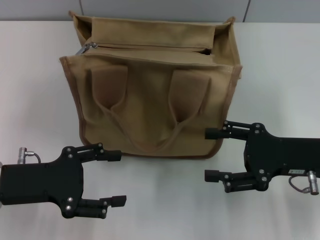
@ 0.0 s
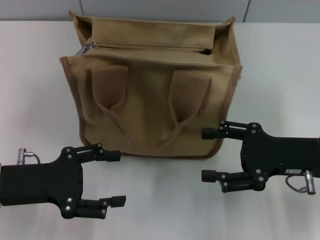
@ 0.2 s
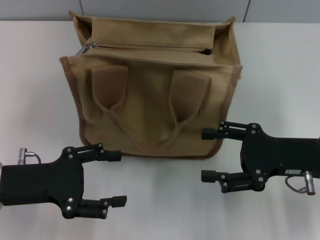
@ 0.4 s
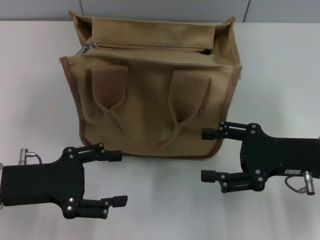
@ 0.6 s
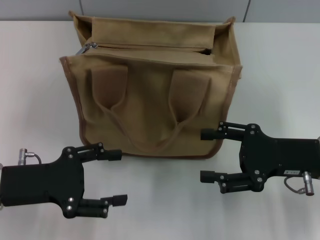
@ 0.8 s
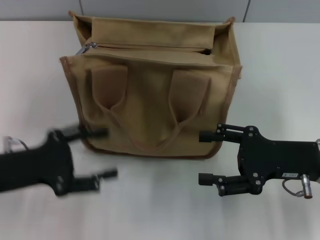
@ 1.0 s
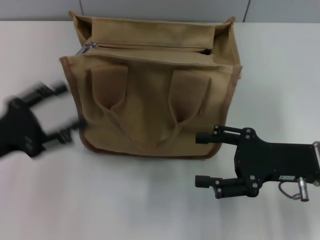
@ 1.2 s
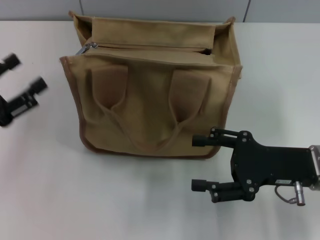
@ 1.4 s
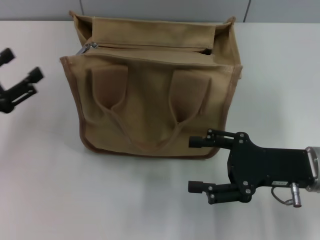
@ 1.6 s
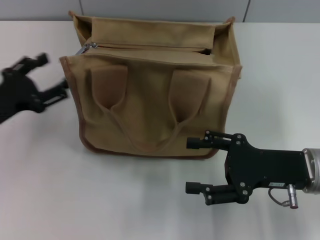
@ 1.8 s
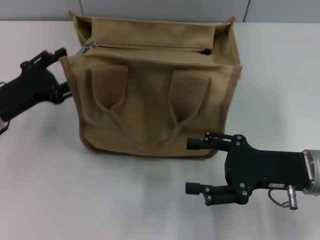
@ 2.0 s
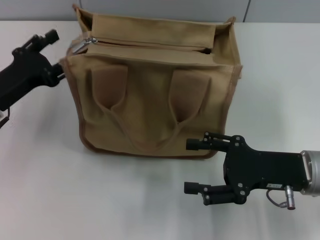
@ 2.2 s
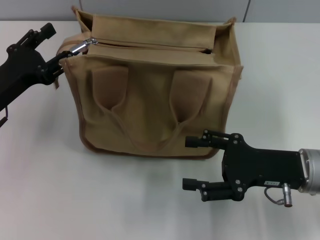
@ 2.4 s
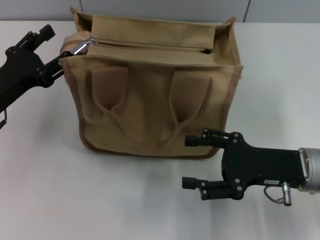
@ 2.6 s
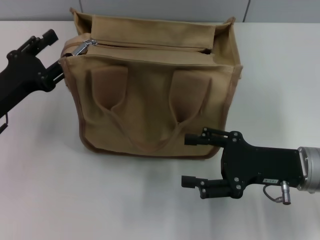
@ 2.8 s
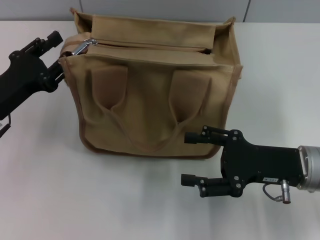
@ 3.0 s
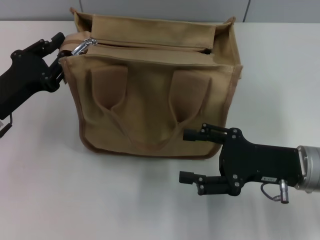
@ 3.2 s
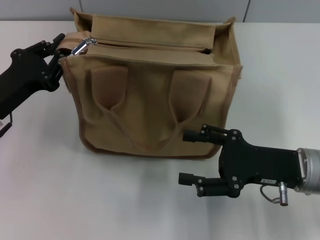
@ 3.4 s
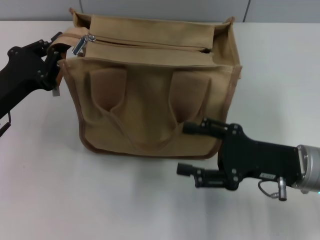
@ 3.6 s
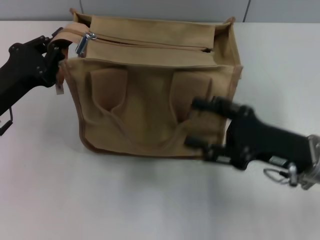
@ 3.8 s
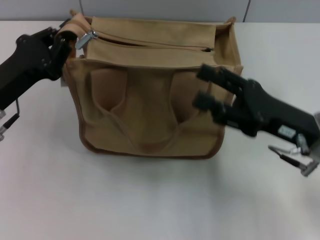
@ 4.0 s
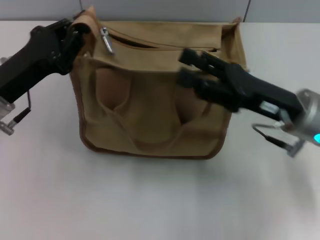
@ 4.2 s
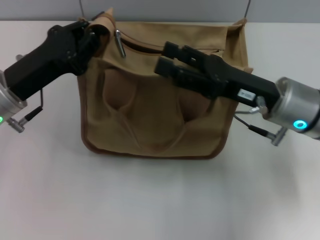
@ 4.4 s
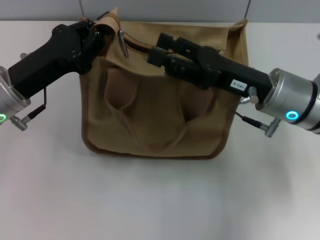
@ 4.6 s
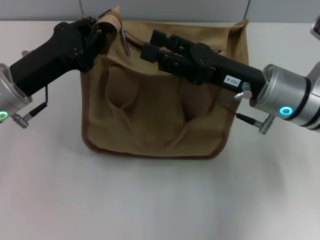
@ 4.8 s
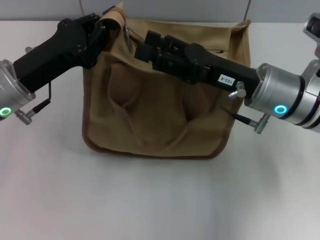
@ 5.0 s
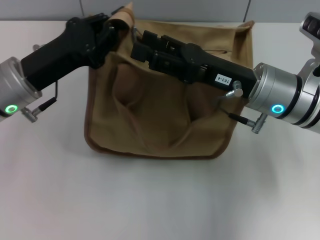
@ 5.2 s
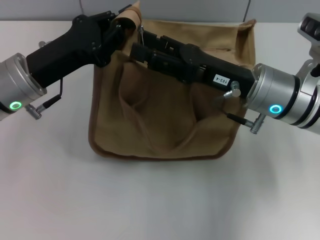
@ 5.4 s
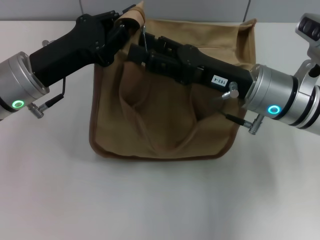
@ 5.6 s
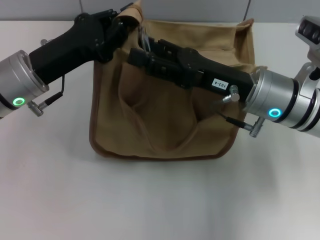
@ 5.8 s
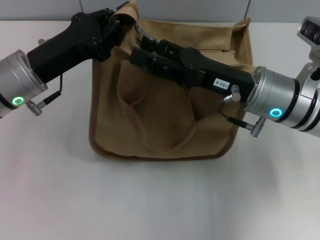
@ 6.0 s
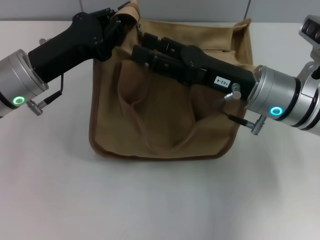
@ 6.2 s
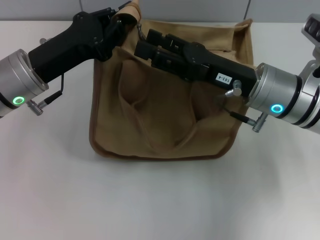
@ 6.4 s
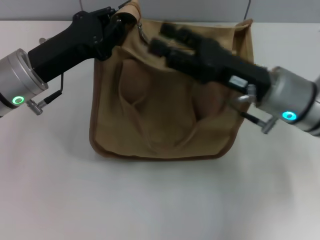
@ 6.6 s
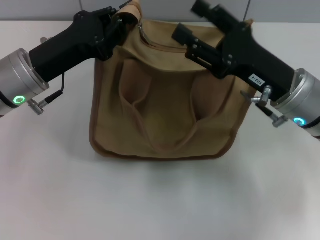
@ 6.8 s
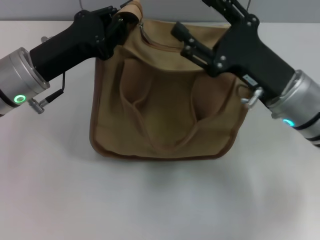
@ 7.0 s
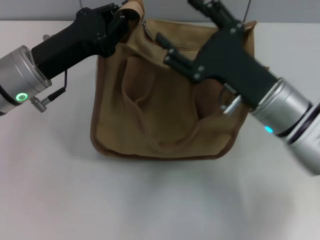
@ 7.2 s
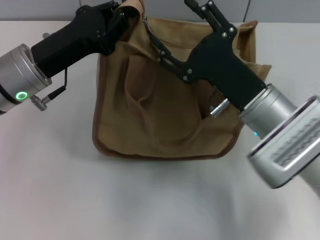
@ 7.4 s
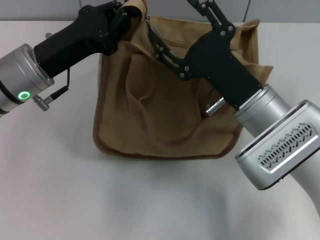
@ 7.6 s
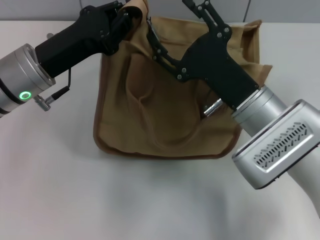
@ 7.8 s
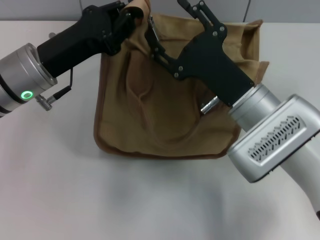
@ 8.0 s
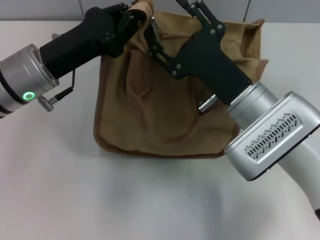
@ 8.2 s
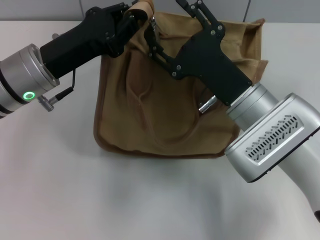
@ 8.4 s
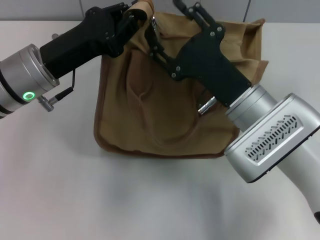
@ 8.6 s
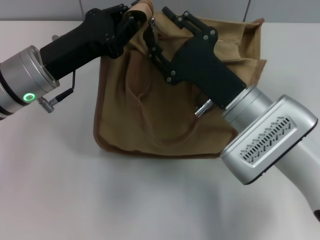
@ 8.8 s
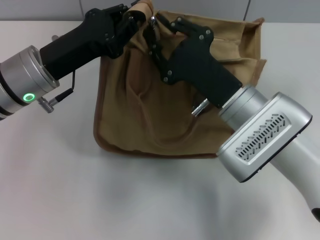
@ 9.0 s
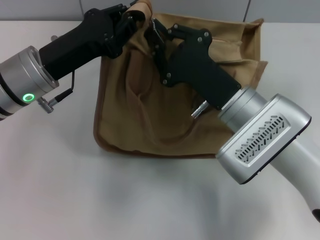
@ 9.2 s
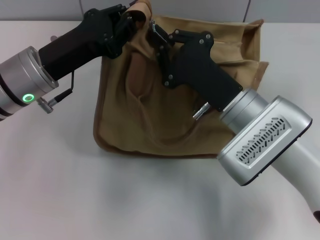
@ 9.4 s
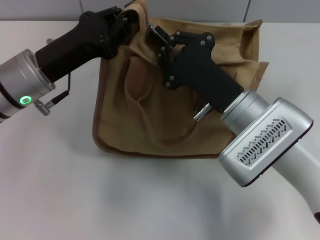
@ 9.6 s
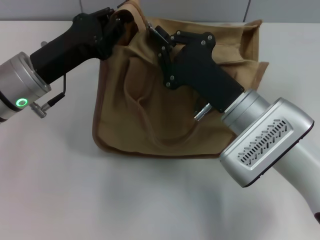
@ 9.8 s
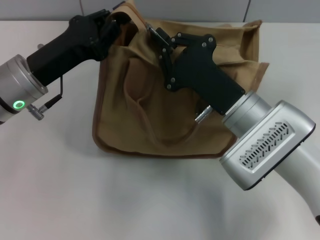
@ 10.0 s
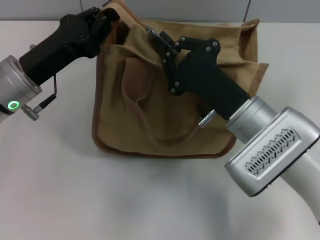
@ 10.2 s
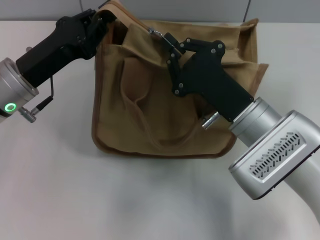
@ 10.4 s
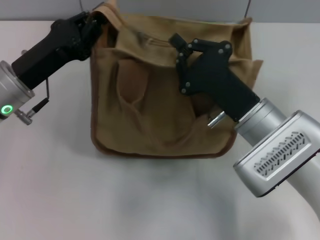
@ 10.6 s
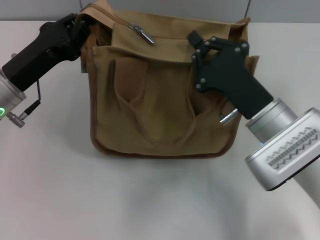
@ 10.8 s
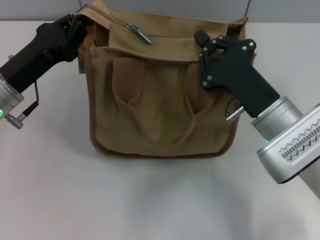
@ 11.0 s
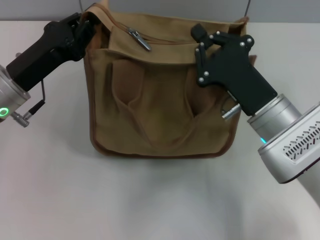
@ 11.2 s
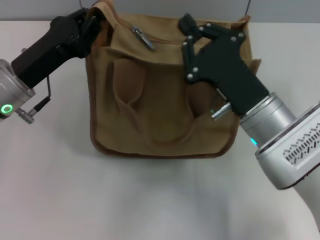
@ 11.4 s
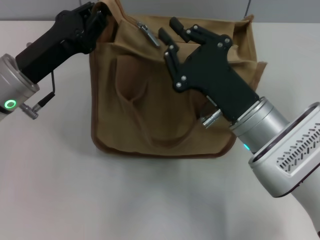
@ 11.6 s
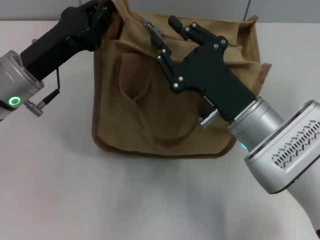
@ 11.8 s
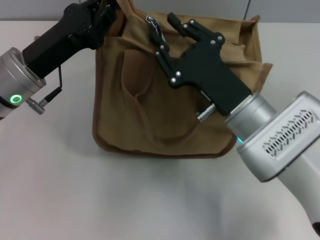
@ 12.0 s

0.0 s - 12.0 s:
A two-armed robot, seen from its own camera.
0.0 s - 1.6 s: The left gripper goes roughly 5 cm to the left.
1.6 s - 3.0 s: The left gripper travels to the right by some 5 cm.
3.0 s - 4.4 s: The left gripper ends up roughly 5 cm from where it was, and closes, while the right gripper goes some 5 cm forward.
4.4 s - 6.0 s: The grippers make only small movements.
7.6 s - 9.0 s: The right gripper closes its fingers.
9.0 s - 10.4 s: The right gripper closes.
10.4 s - 12.0 s: The grippers make only small movements.

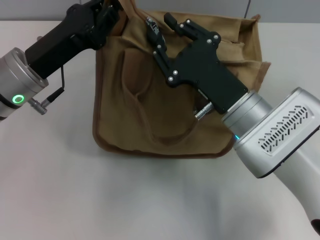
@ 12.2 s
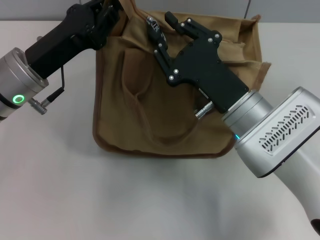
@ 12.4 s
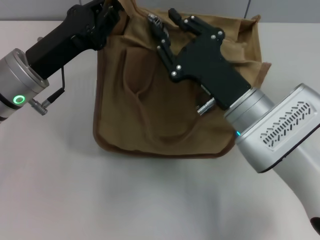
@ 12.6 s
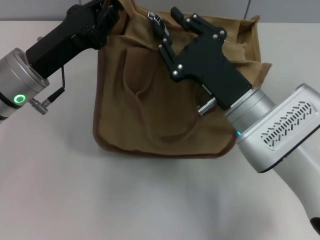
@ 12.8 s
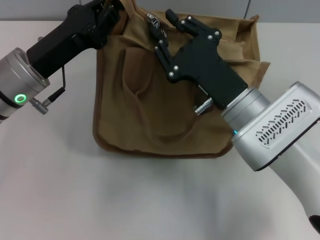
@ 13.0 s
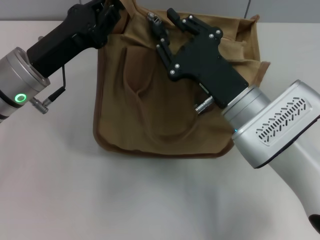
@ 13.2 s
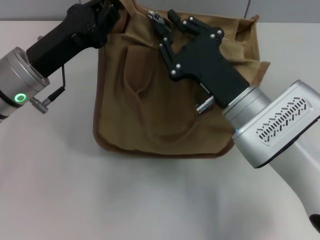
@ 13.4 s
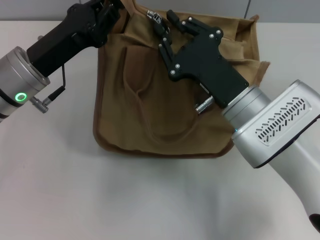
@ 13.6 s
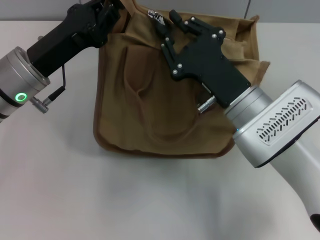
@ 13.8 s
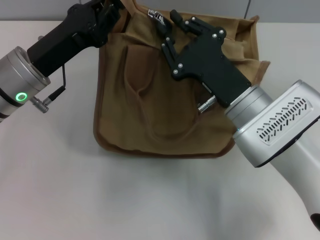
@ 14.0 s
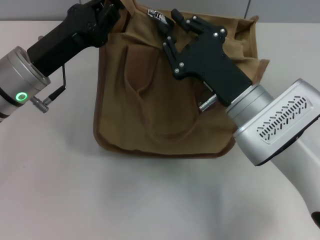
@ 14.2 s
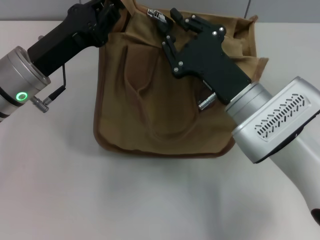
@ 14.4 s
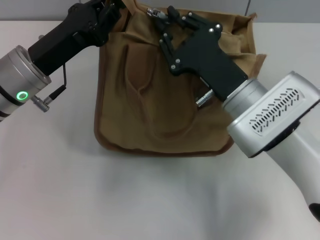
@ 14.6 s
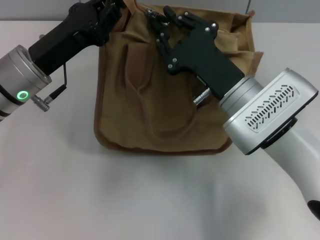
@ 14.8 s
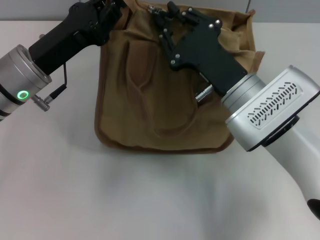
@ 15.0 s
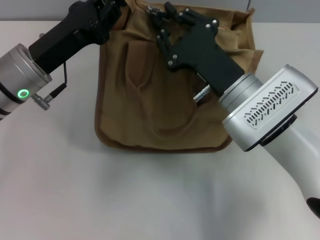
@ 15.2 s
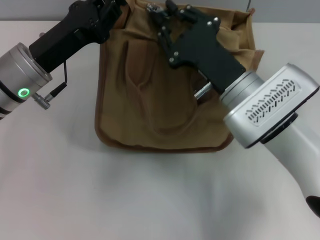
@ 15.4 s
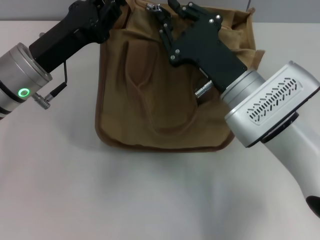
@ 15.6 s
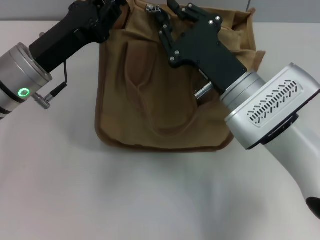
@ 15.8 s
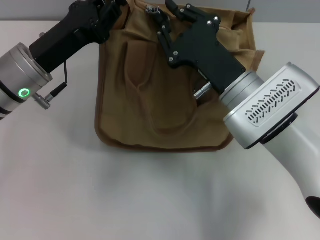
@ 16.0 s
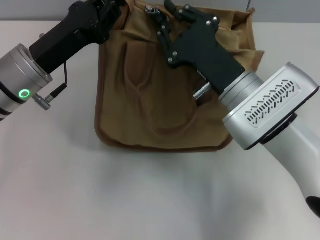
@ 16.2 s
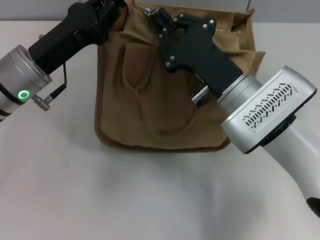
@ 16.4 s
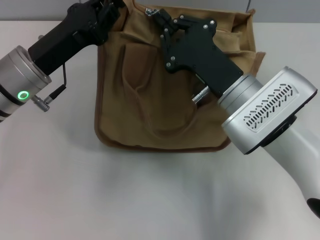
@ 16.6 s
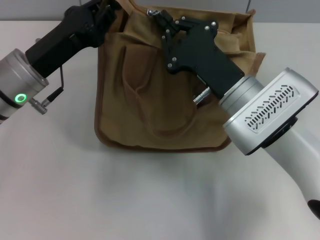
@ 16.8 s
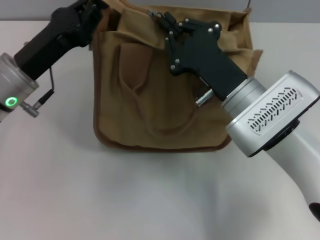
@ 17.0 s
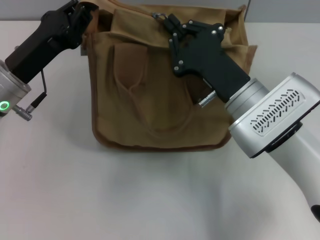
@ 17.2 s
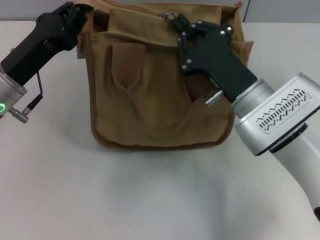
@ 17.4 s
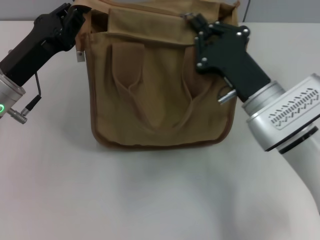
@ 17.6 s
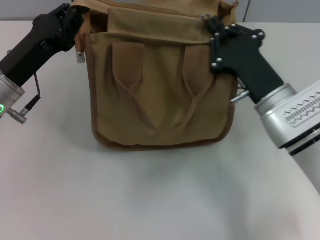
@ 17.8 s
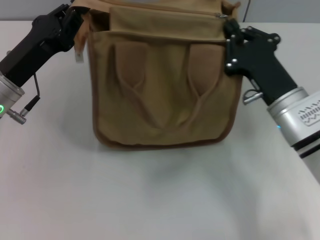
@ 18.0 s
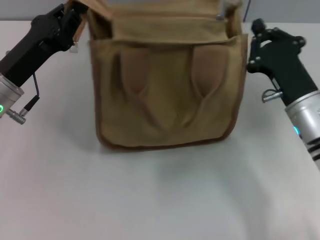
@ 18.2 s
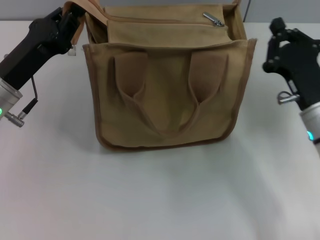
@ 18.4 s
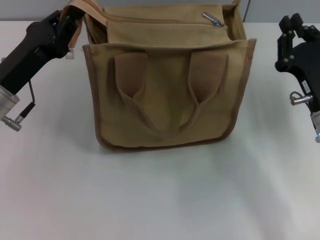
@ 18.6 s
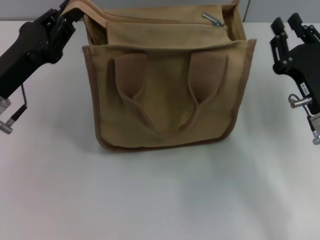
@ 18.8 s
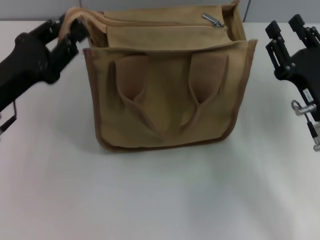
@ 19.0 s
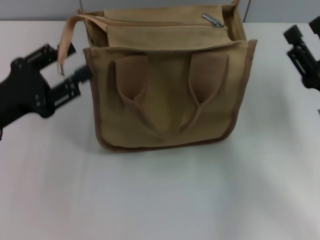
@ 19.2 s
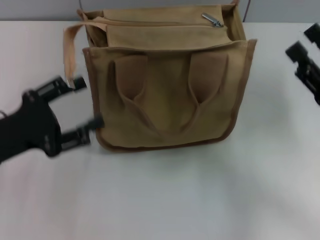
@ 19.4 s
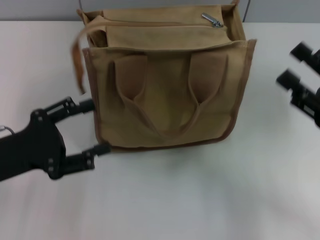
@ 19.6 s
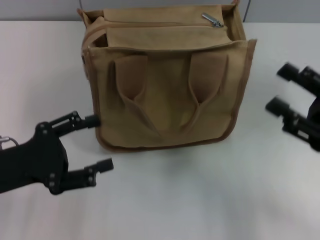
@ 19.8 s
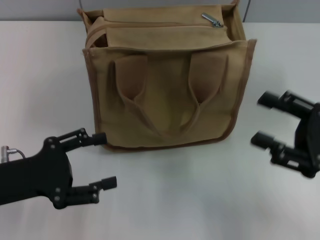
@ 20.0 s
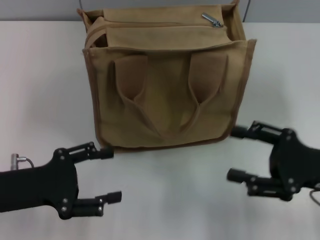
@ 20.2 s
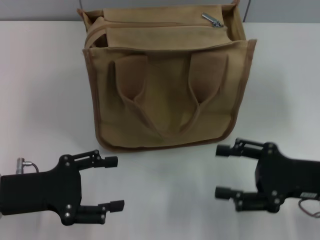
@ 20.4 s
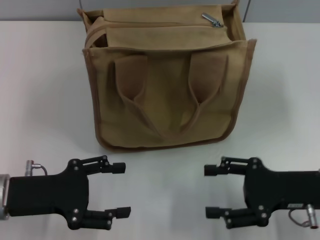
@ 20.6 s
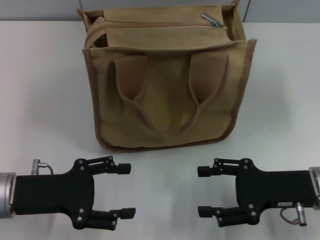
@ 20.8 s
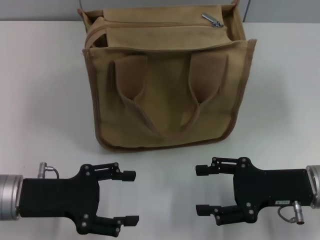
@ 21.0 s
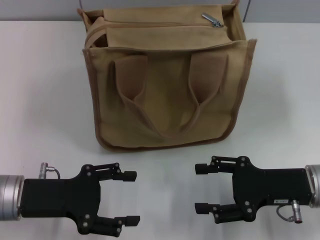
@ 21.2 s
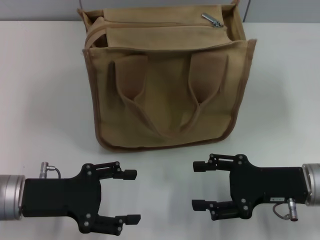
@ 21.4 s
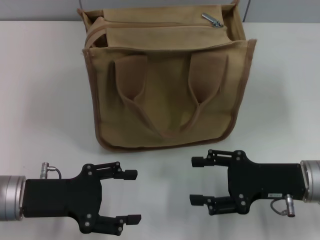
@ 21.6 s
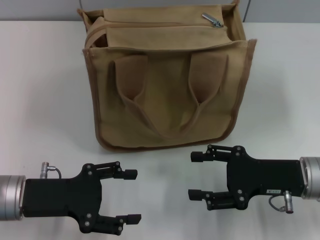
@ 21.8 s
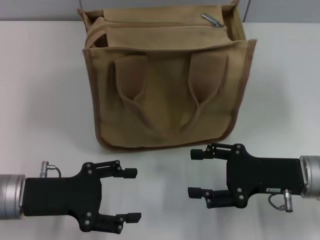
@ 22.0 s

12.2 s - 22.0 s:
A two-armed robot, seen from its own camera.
Step, 12.2 s - 18.2 s: Pull up the zipper with your right hand.
Step, 18.4 s - 19.2 s: Grab the zipper with your left hand.
12.2 s - 13.6 s: The two grippers keep their place.
13.6 s - 15.0 s: The grippers move only a little.
15.0 s - 16.4 s: Both grippers stay about where they are.
16.4 s - 17.8 s: The right gripper heads to the right, covering approximately 5 cm.
17.8 s - 19.2 s: The left gripper goes approximately 5 cm backward, and opens up. The right gripper is displaced to the right and backward by roughly 10 cm, and opens up.
19.2 s - 20.6 s: The right gripper opens. Meanwhile the left gripper changes place by roughly 5 cm, and opens its fingers.
20.6 s - 22.0 s: The grippers move only a little.
